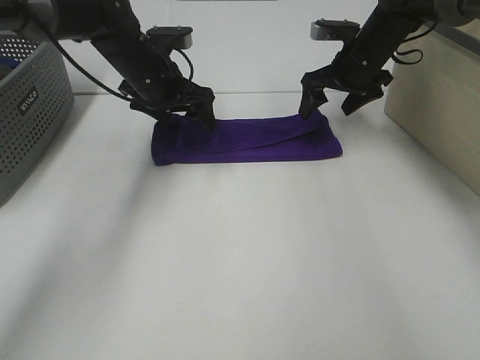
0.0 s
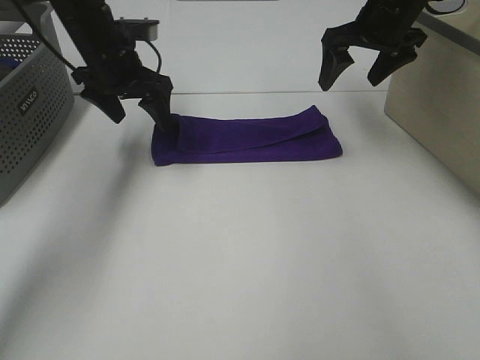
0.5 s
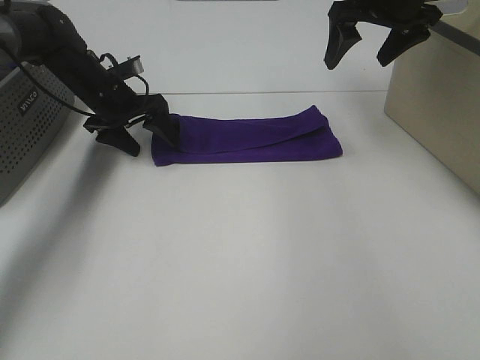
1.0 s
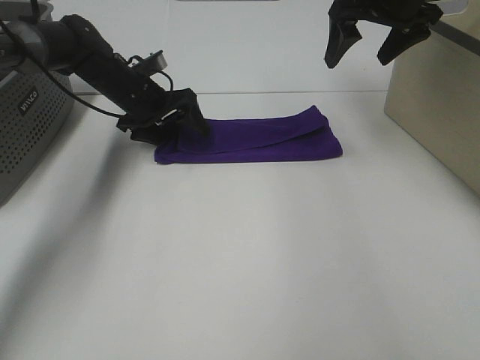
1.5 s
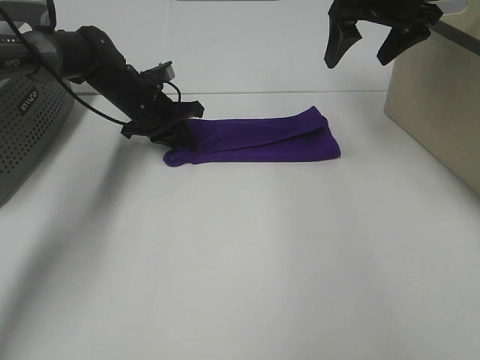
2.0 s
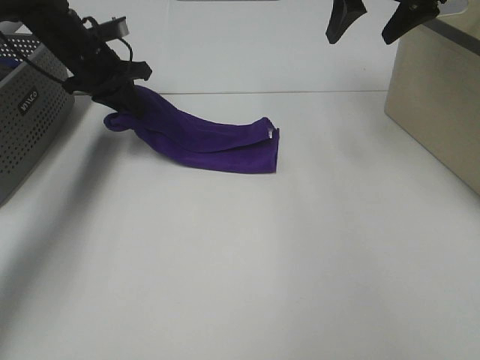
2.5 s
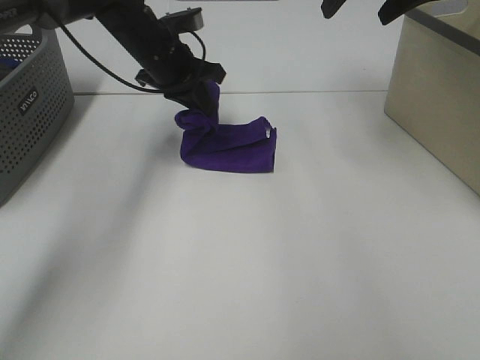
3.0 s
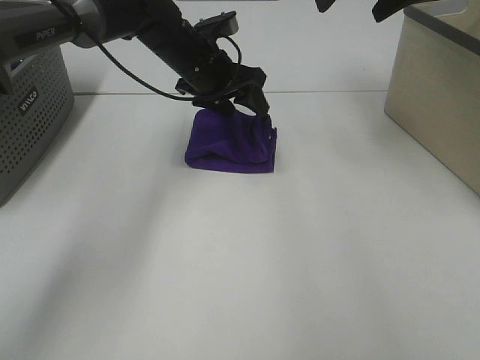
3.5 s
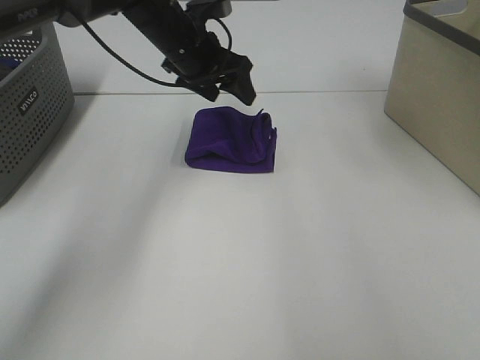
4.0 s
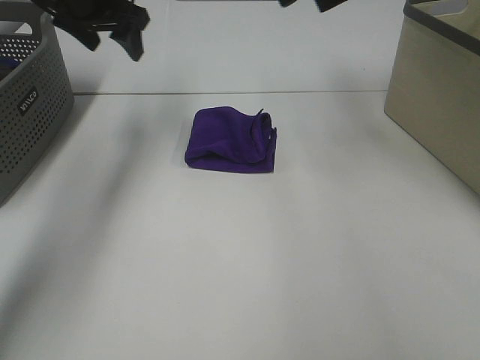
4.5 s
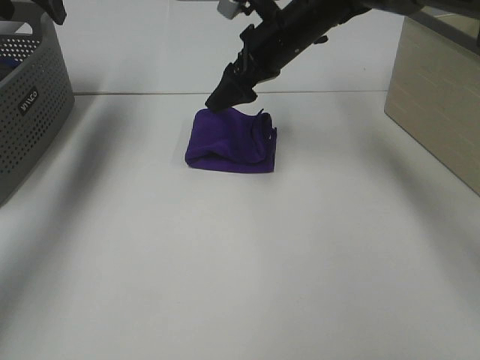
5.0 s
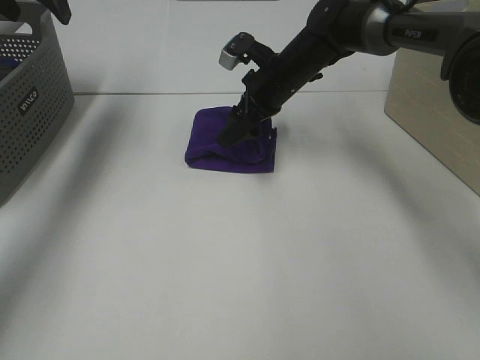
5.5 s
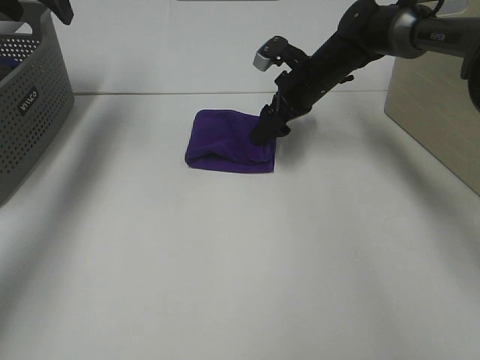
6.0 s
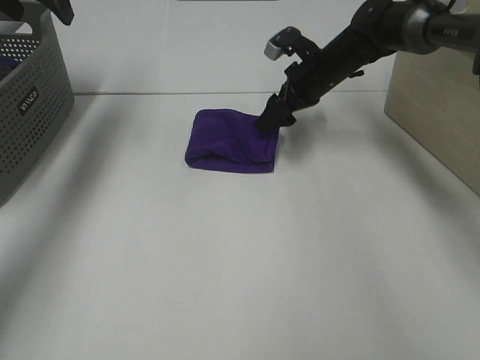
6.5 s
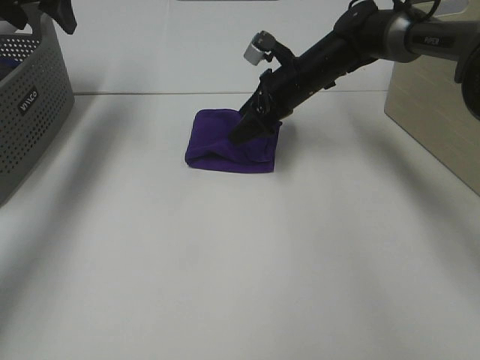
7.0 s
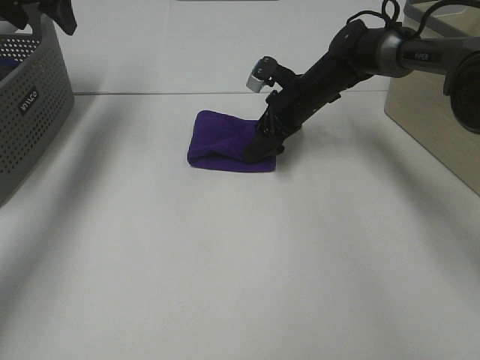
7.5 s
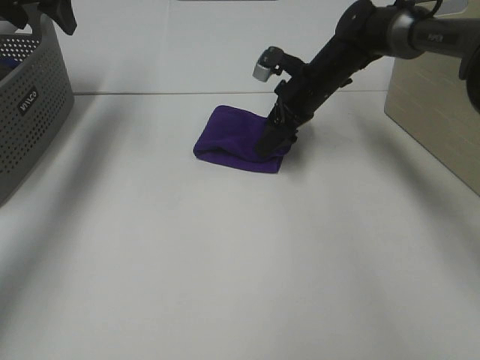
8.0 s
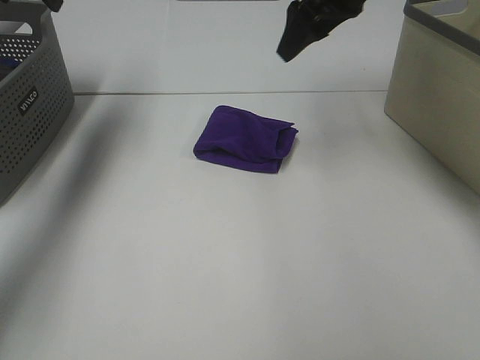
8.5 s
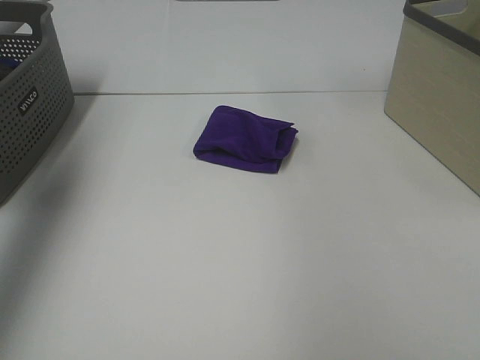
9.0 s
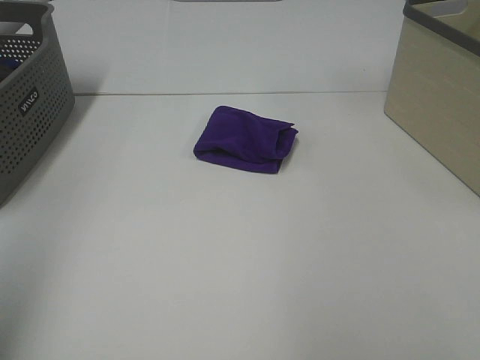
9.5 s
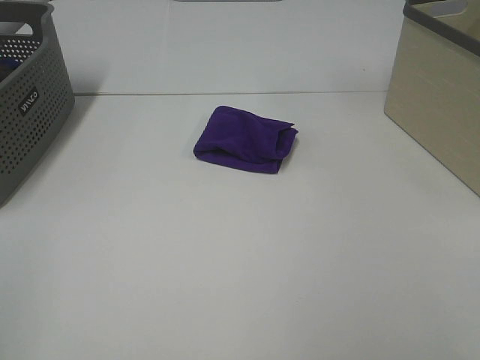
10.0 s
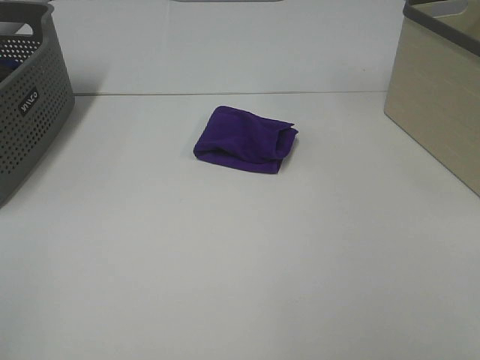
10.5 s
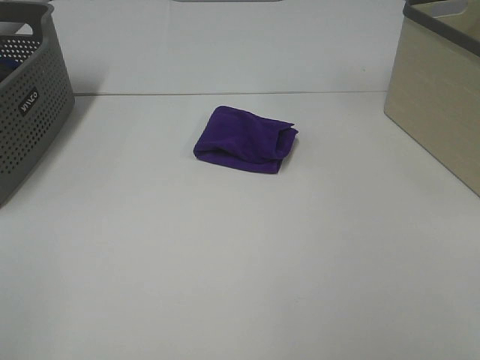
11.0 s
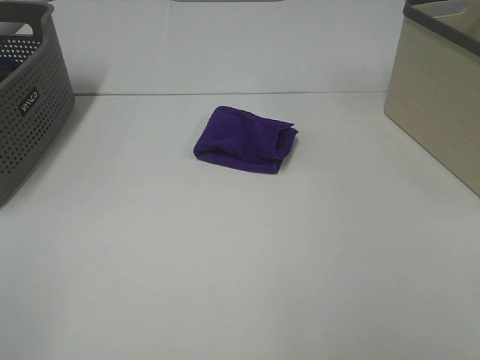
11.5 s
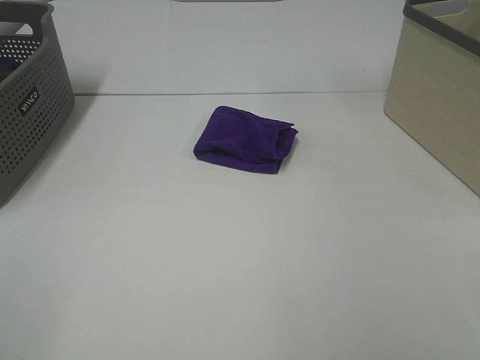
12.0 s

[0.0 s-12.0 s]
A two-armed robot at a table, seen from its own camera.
Task of the whole recording: Fold towels.
Step, 0.0 to 3.0 s: Left hand: fold the purple towel from left to right.
Step, 3.5 to 8.0 s: Right hand: adjust the purple towel.
0.0 to 2.0 s: The right gripper travels upward by about 10 cm. The left gripper heads downward, covering about 10 cm, and closes up.
2.0 to 4.0 s: The left gripper is displaced upward and to the right by some 15 cm, and opens. Meanwhile the right gripper heads upward, covering some 10 cm.
4.0 to 6.0 s: The left gripper moves to the left and upward, about 25 cm, while the right gripper shifts roughly 25 cm downward.
6.0 to 8.0 s: There are only small adjustments of the grippers.
8.0 to 10.0 s: Both grippers travel together backward, about 50 cm.

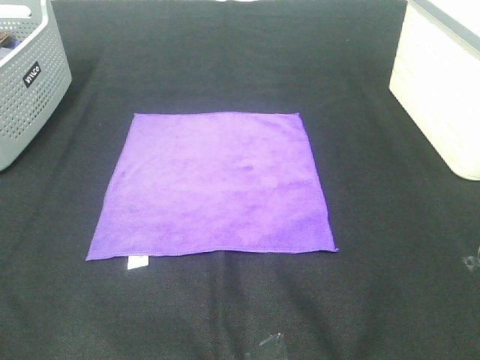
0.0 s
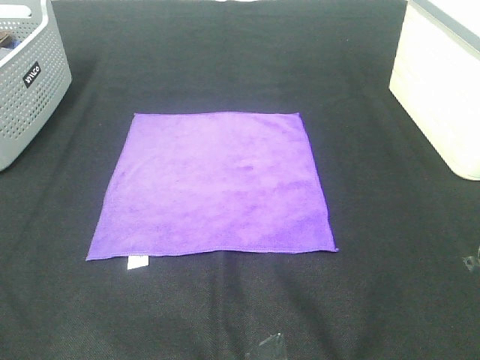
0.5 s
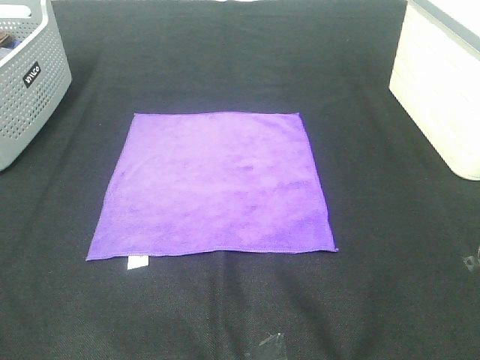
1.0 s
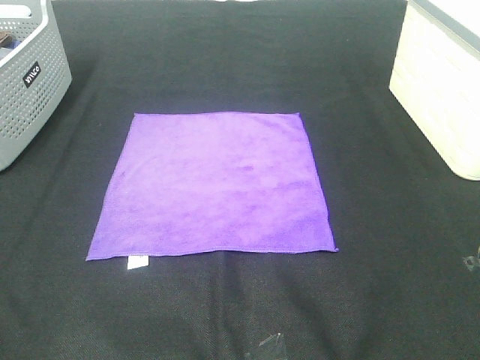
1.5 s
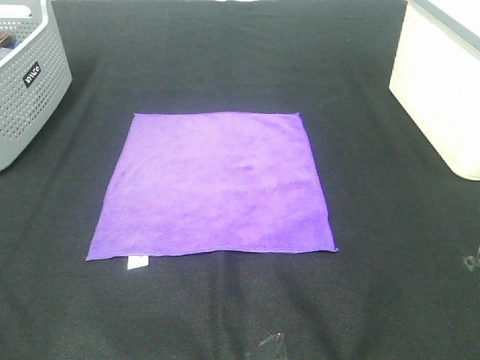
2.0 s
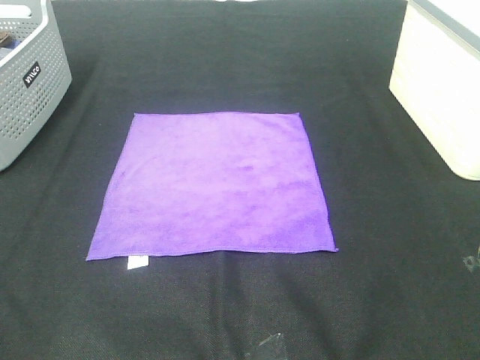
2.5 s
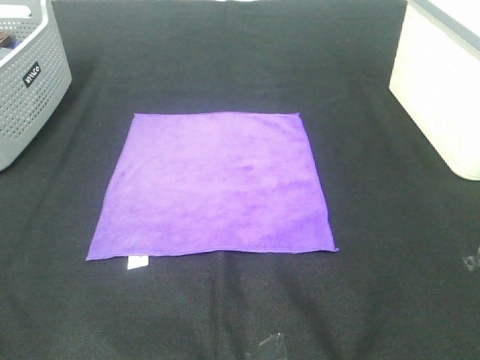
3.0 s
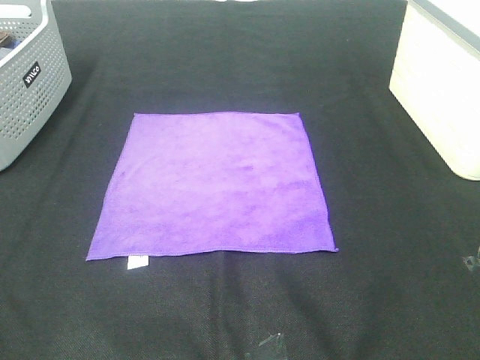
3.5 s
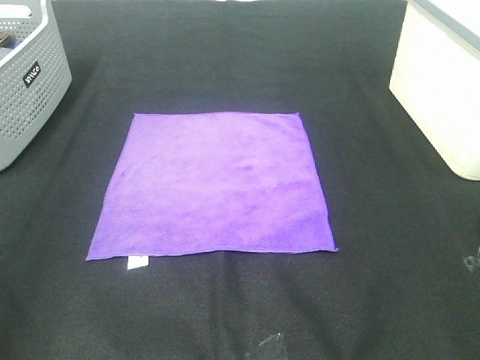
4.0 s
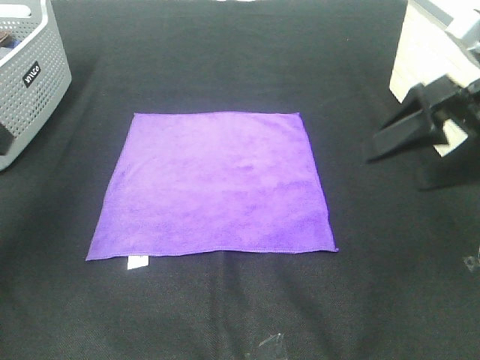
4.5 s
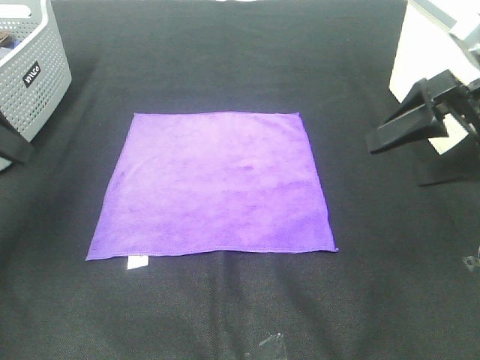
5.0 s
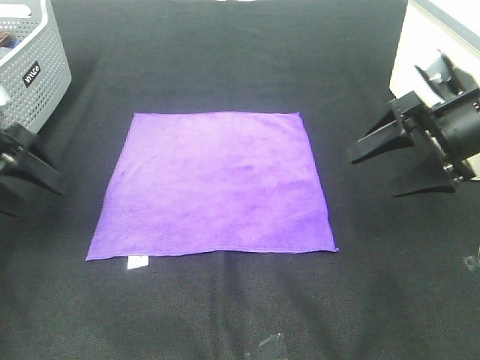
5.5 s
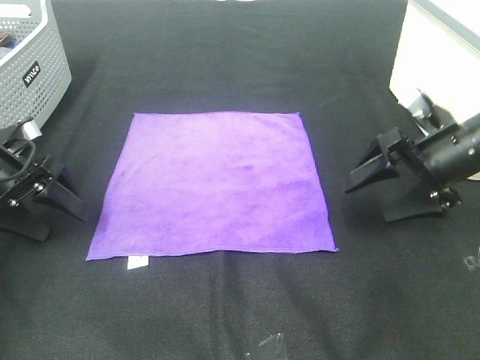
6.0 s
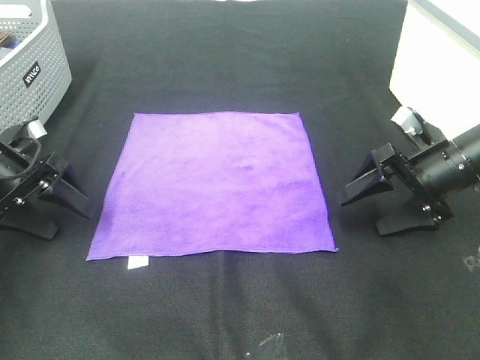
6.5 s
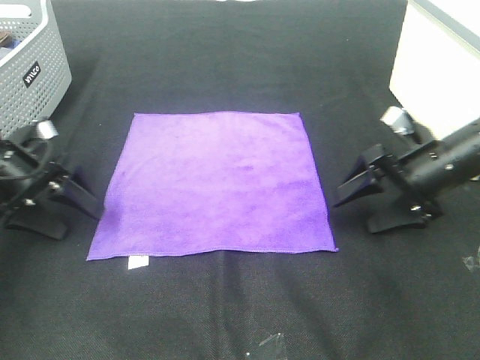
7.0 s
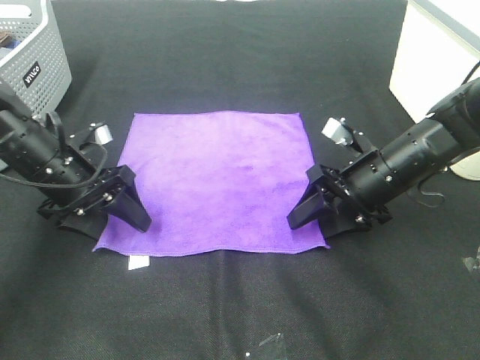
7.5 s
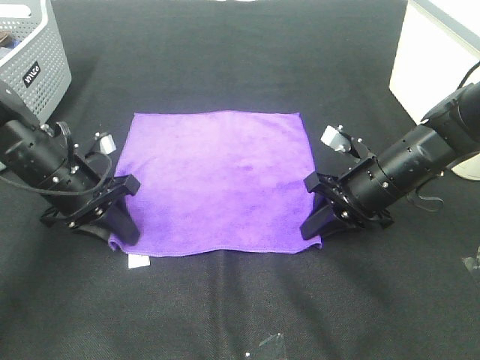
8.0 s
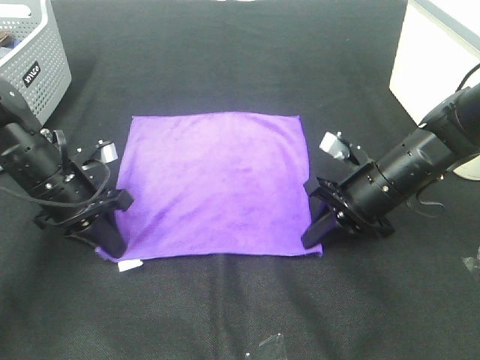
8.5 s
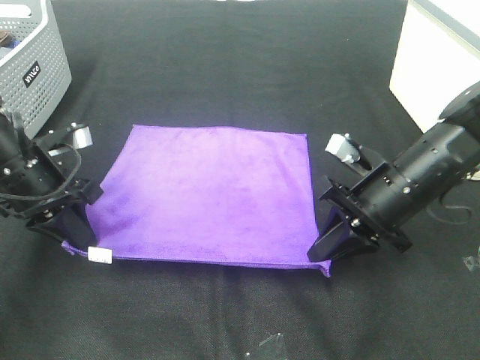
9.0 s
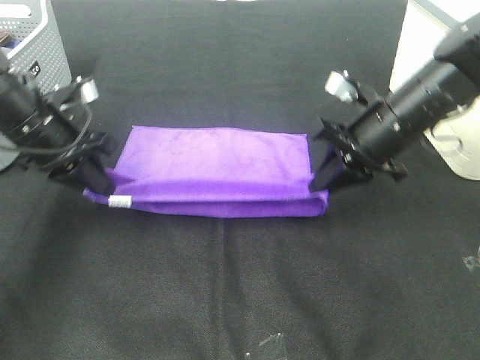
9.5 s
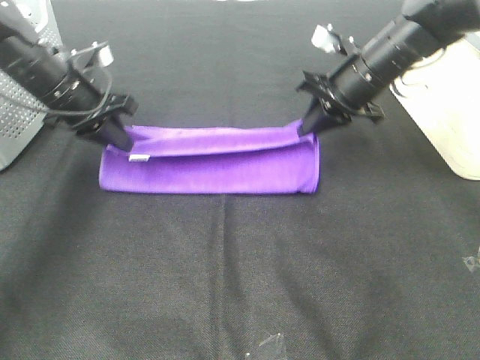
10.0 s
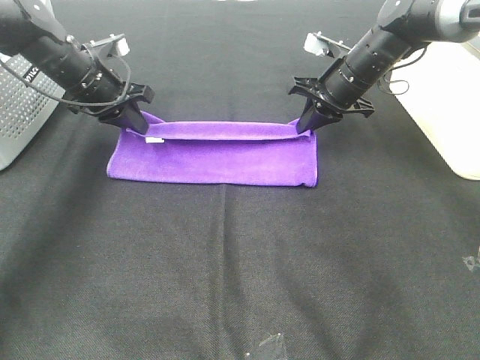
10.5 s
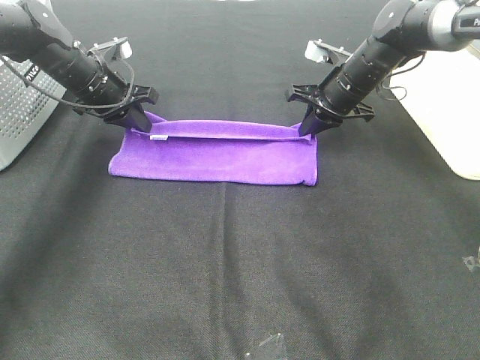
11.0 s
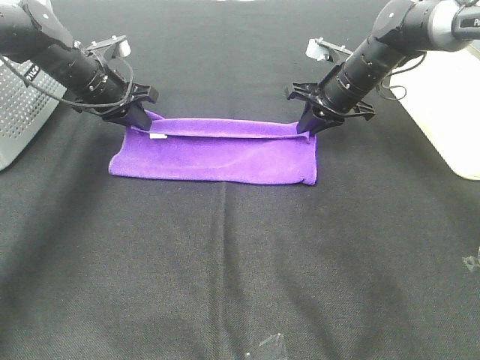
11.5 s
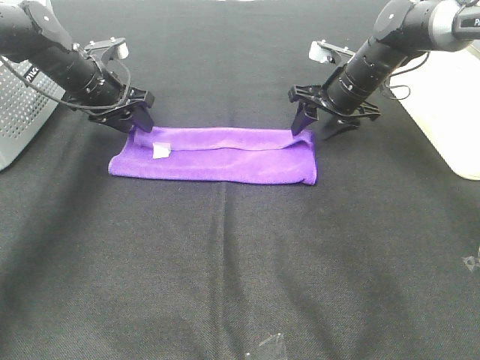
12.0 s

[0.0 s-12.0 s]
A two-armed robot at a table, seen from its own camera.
Task of the whole recording: Fold towels.
Step, 0.0 to 8.0 s: Left hand: grab the bottom left corner of purple towel.
Step, 0.0 to 8.0 s: Right hand: grab the bottom right corner of purple towel.
Step, 8.5 to 11.5 s: Right hand: fold the purple towel up.
0.0 to 2.0 s: Neither gripper changes place.
4.0 to 6.0 s: The left gripper goes some 30 cm downward and forward. The right gripper goes about 25 cm forward and downward.
6.0 to 8.0 s: The right gripper shifts some 10 cm to the left, and closes up. The left gripper is displaced to the right by some 10 cm, and closes its fingers.
8.0 to 10.0 s: The grippers both shift forward and upward by some 15 cm.
10.0 to 12.0 s: The left gripper heads forward, covering about 5 cm, and opens, while the right gripper moves about 5 cm, and opens.

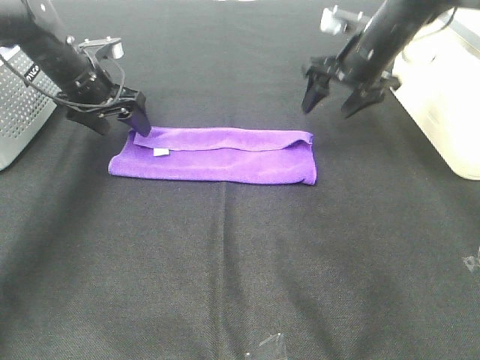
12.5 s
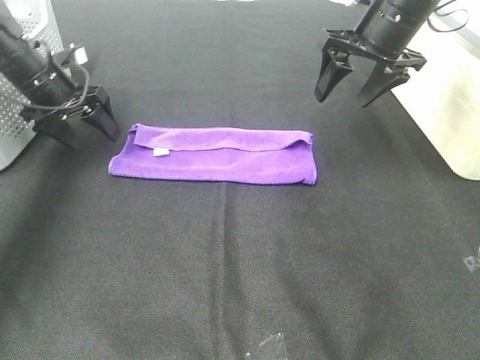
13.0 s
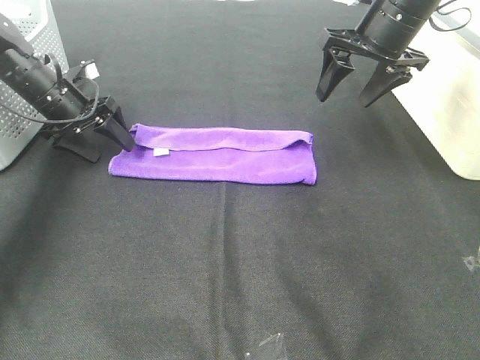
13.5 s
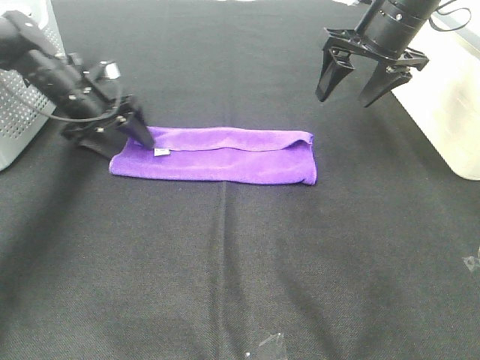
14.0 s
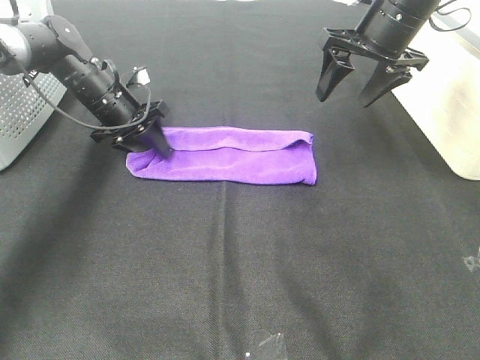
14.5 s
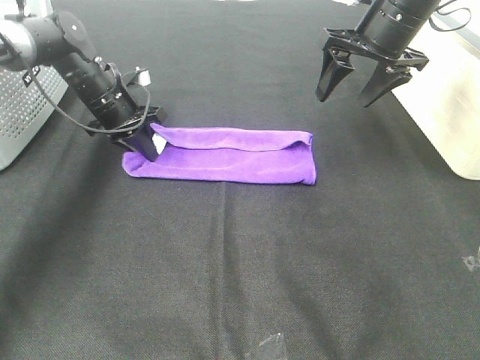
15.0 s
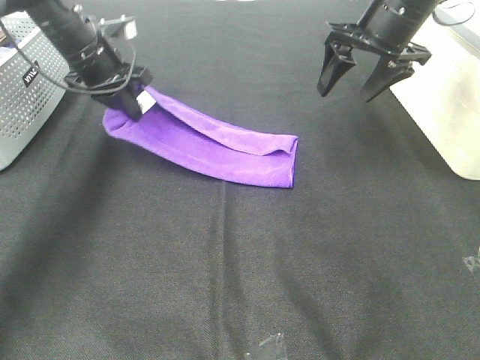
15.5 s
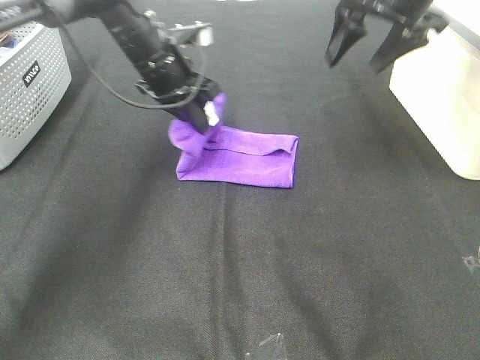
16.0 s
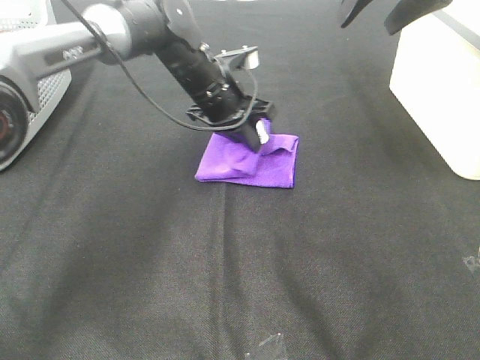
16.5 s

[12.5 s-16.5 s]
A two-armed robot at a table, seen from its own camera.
Task of the whole recording: Fold towels.
12.5 to 14.5 s: The right gripper shifts by roughly 5 cm. Meanwhile the left gripper travels to the left and back again, roughly 5 cm each way, and closes its fingers.
14.5 to 16.5 s: The left gripper goes approximately 15 cm to the right. Meanwhile the right gripper moves upward, about 10 cm.
